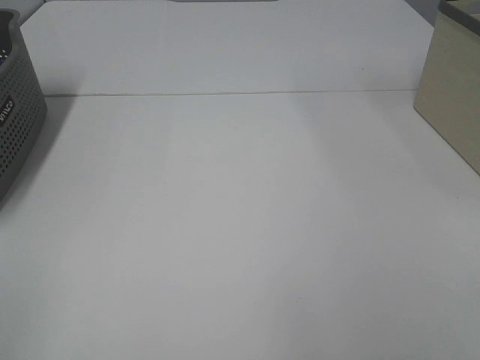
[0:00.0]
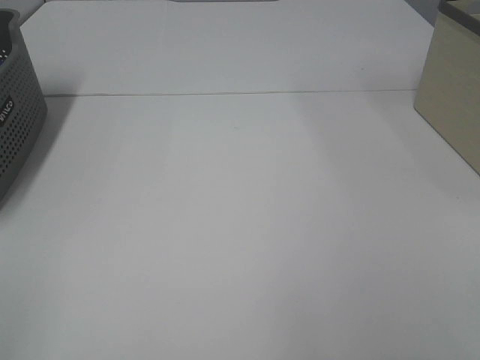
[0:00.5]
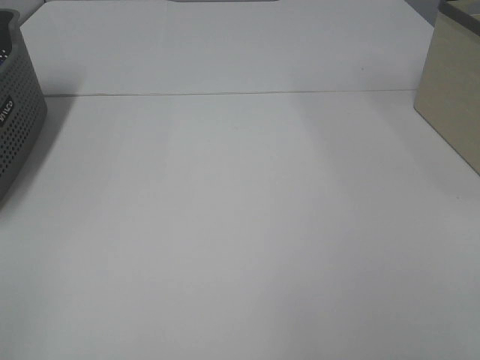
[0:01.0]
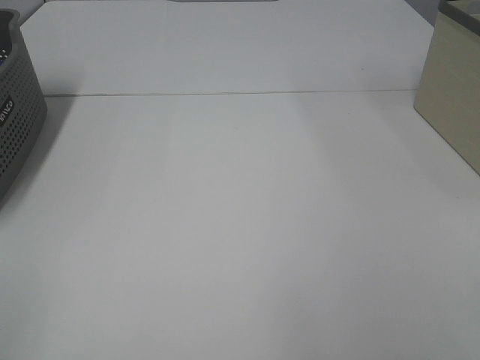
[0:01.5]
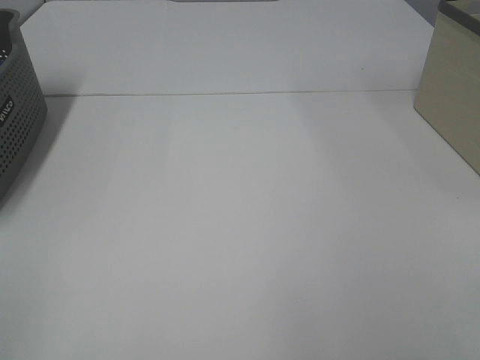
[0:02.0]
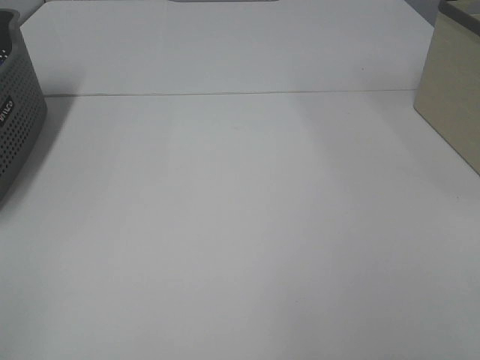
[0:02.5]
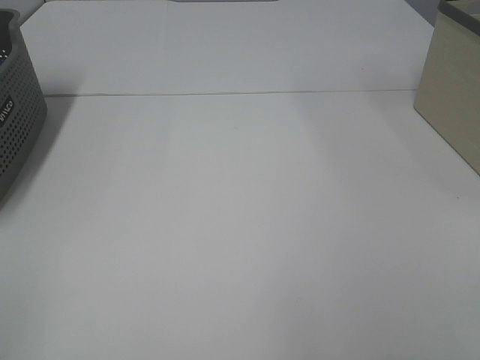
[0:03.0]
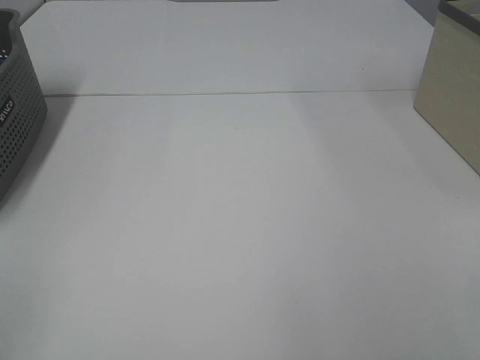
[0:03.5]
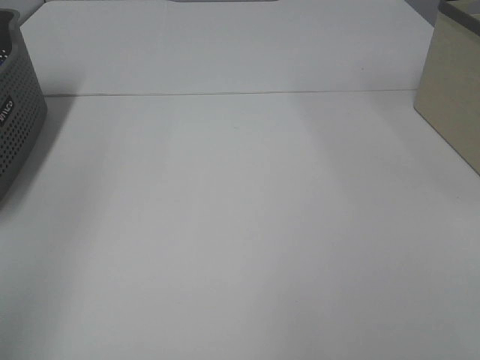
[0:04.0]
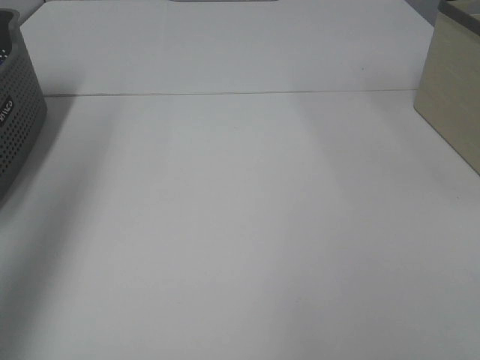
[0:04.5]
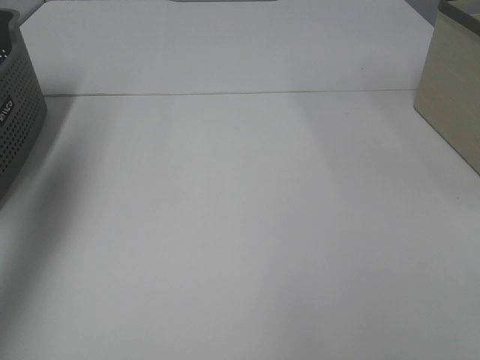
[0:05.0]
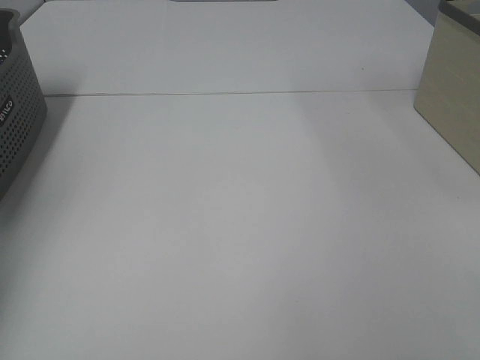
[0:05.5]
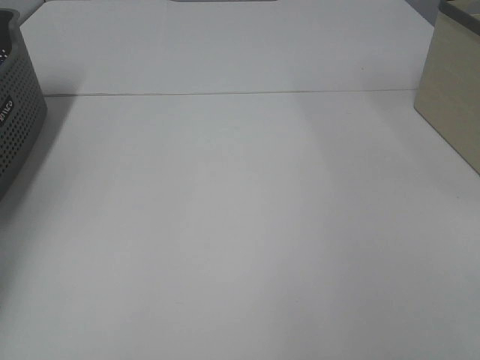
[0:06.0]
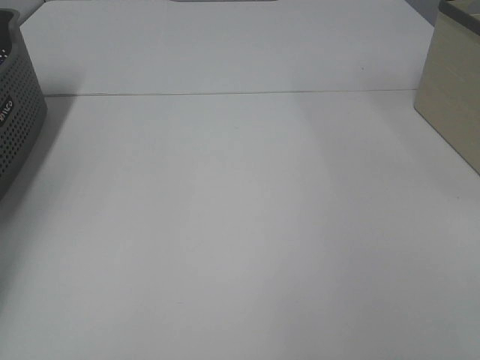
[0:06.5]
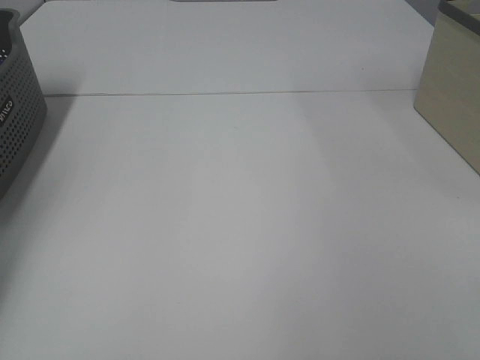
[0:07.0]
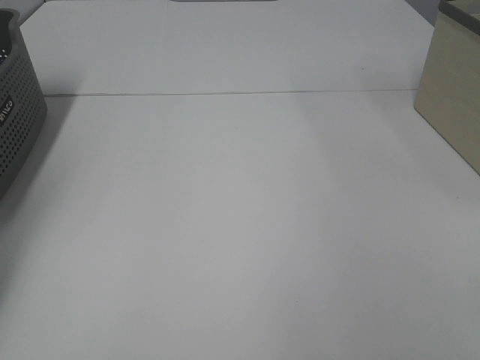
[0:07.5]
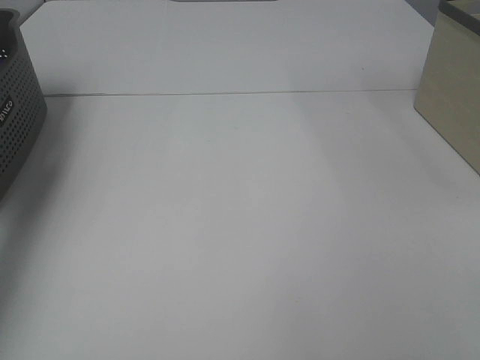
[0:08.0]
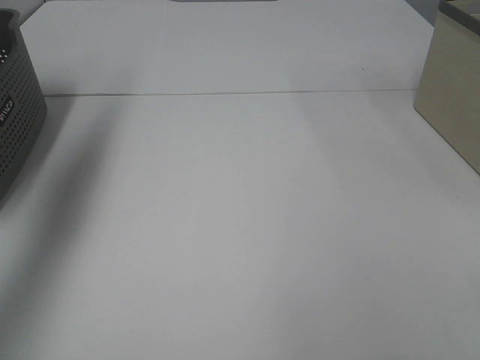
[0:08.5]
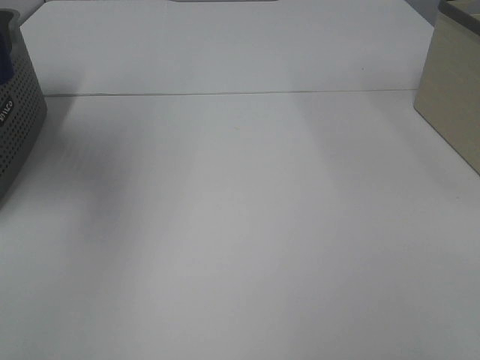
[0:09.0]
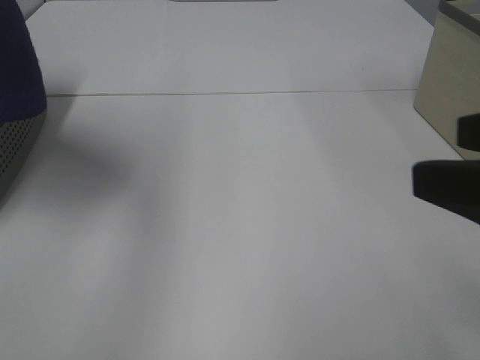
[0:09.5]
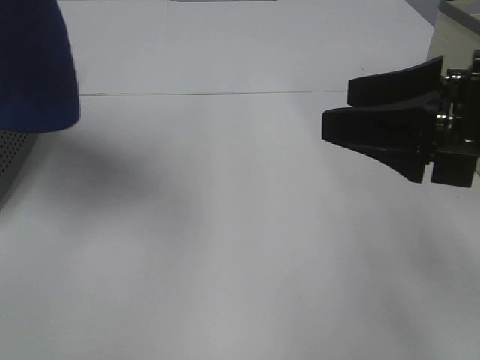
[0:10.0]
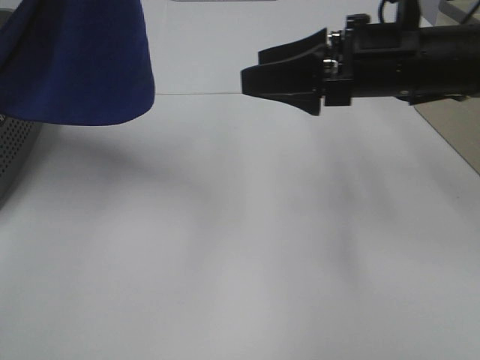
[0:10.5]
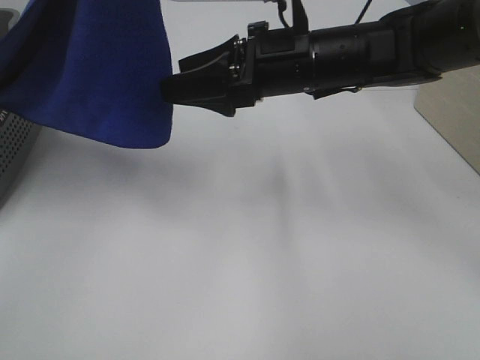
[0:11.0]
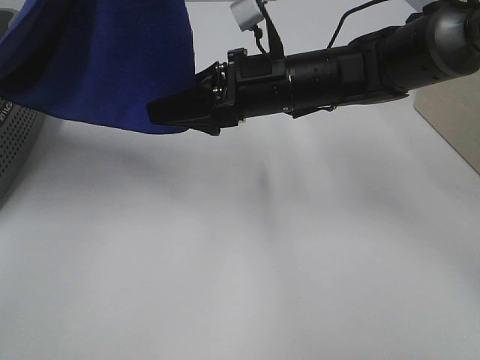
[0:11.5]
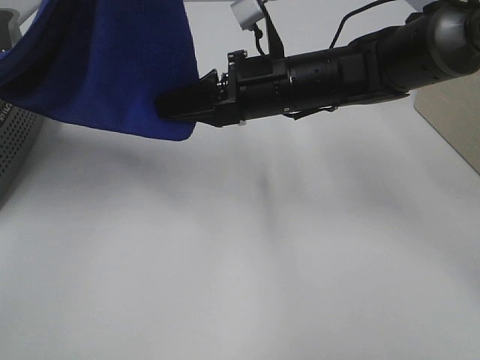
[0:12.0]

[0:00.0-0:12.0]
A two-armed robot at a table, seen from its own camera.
Task of the whole recording: Remove the towel and place it.
Step, 0:09.0 to 0:11.5: Right hand: grab a corner of the blue towel and straighten it.
0:00.0 to 0:02.0: Neither gripper changes place.
0:04.0 to 0:06.0: The left gripper moves forward and downward, about 40 cm.
0:06.0 to 0:08.0: The left gripper goes approximately 10 cm upward, and closes its fingers.
0:08.0 to 0:10.0: The left gripper travels to the right, backward and upward by some 40 cm; the right gripper travels forward by about 20 cm.
0:10.0 to 0:12.0: The right gripper moves to the left, forward and downward, roughly 20 cm, and closes up. Meanwhile the left gripper moves about 5 cm.

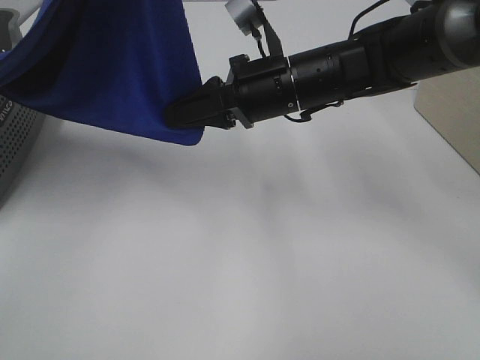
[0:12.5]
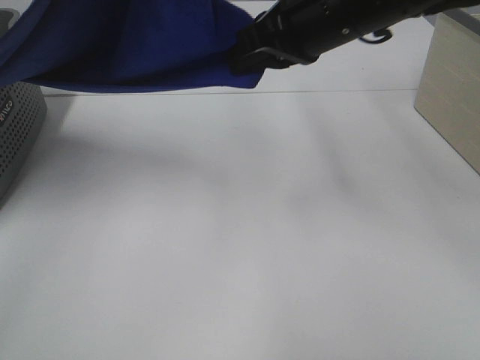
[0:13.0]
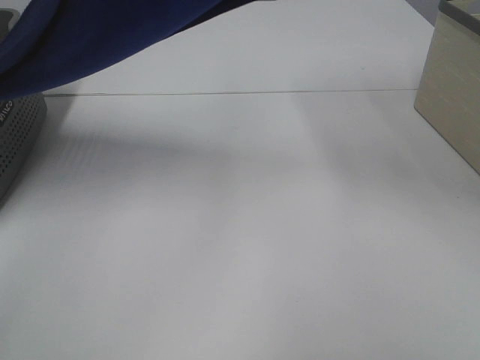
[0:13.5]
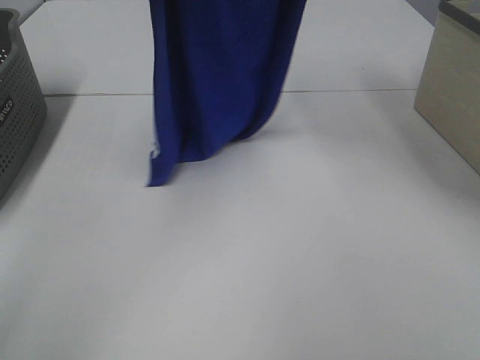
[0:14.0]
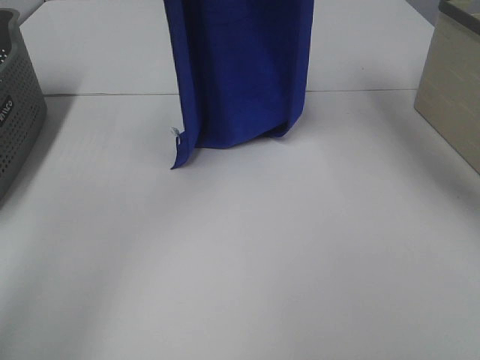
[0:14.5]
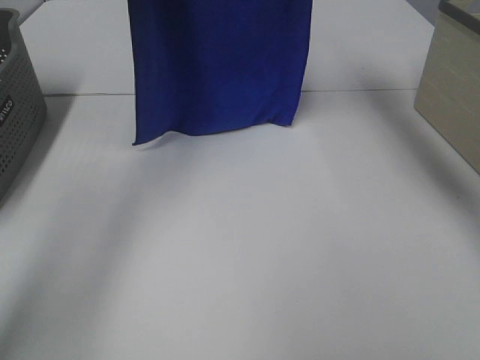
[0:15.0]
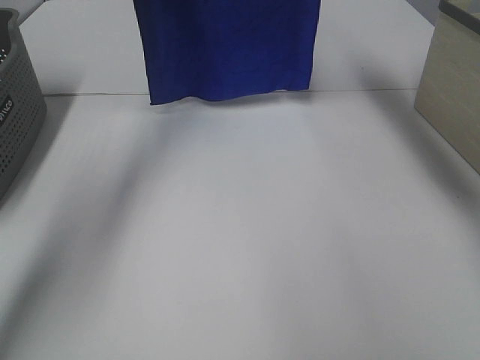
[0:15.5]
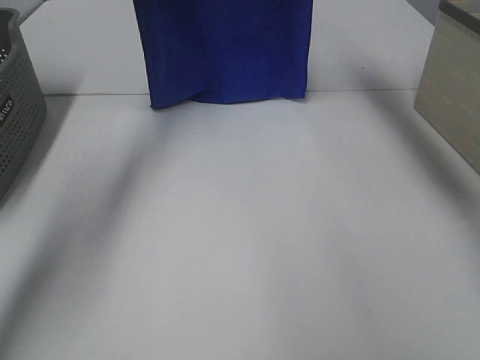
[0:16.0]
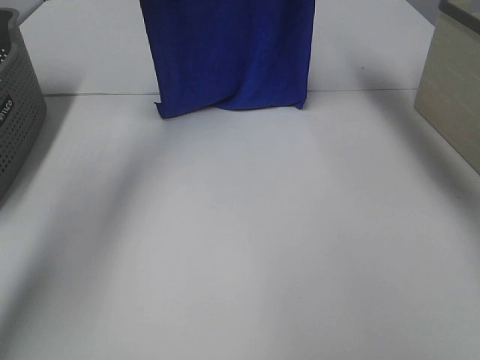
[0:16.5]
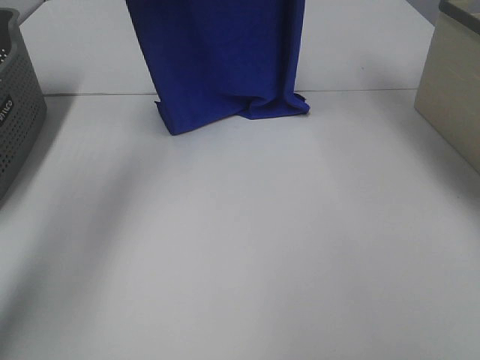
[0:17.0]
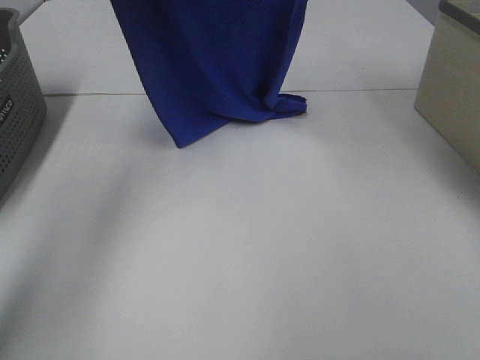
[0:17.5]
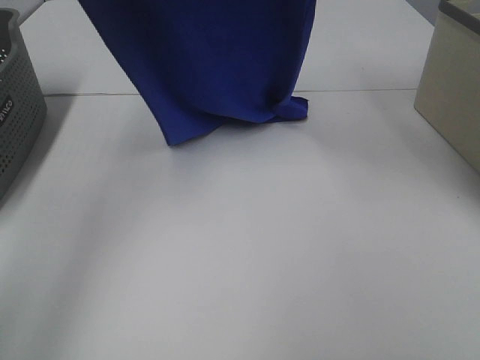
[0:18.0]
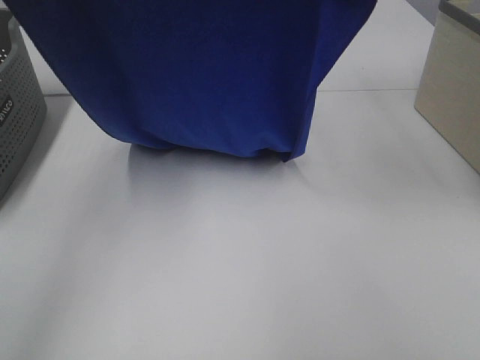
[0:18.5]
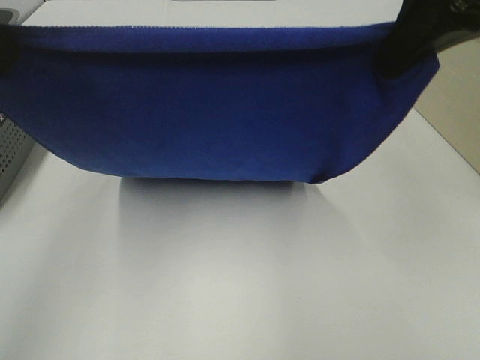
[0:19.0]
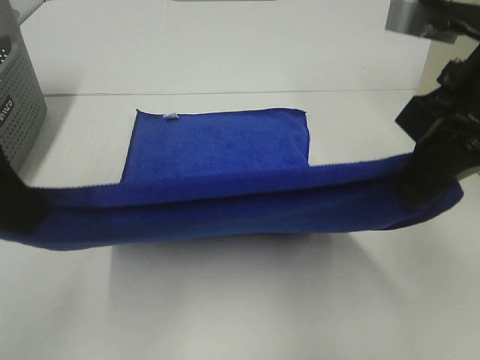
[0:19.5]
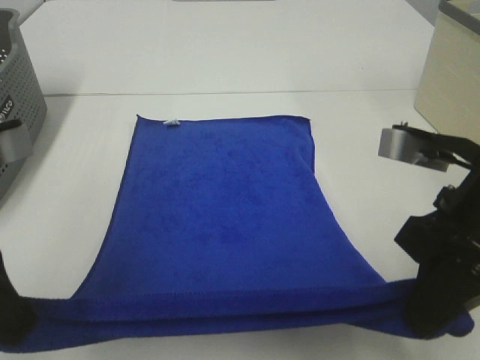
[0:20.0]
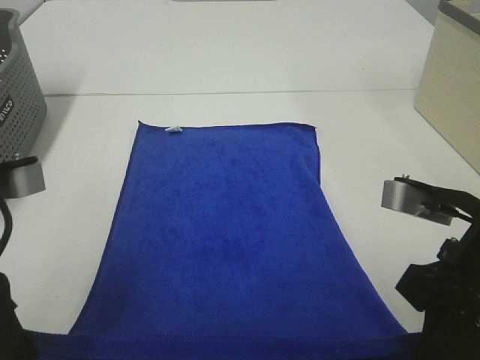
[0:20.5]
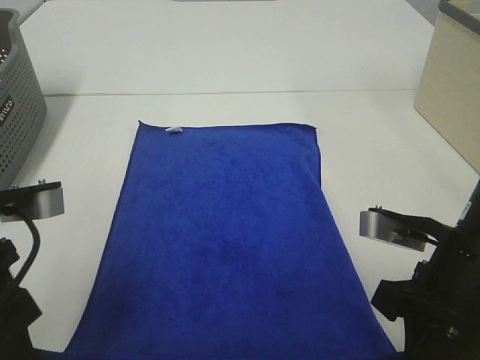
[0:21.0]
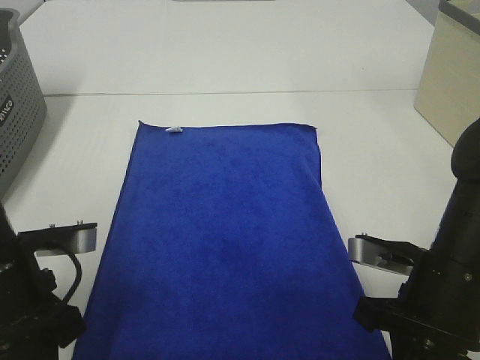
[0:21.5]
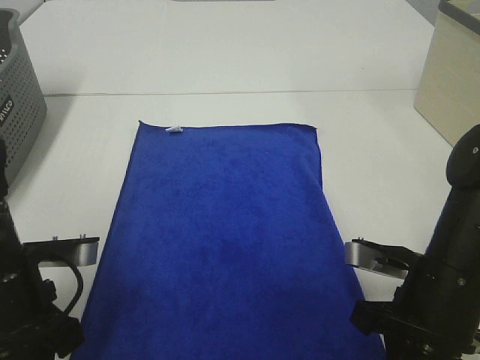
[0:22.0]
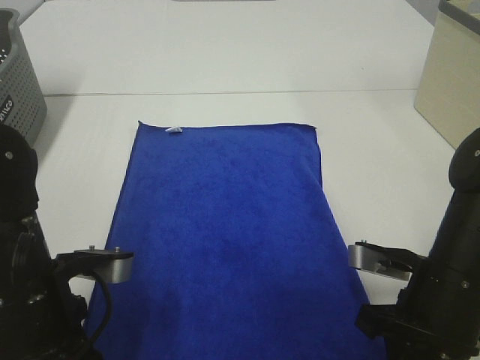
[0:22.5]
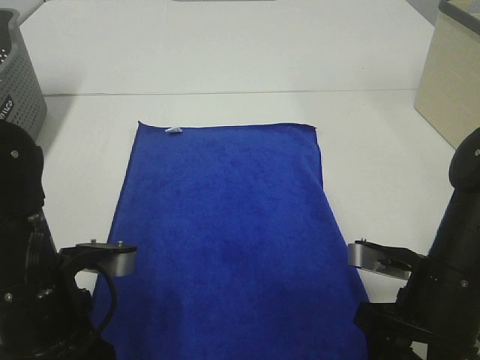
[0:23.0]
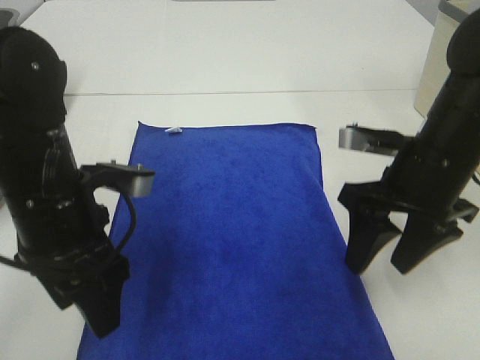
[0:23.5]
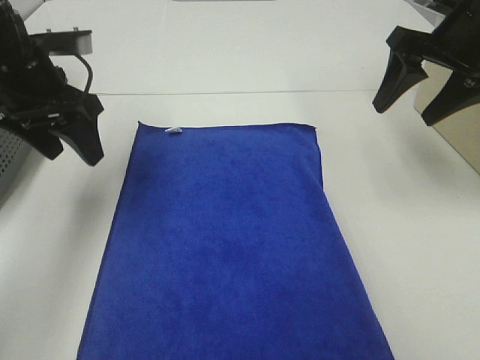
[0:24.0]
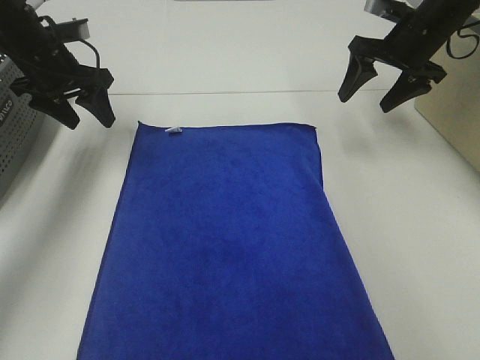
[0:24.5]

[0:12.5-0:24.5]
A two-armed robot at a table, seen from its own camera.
Task of the whole recording: Remove the towel and place it.
Step, 0:12.5 to 0:18.0: Left hand: spread the blue towel flat on the table.
Step, 0:12.5 to 0:18.0: Right hand: spread the blue towel flat on the table.
0:12.5 to 0:14.5: The left gripper moves forward, approximately 15 cm; the right gripper travels upward by about 25 cm.
0:14.5 to 0:16.5: Both grippers move forward, approximately 10 cm.
0:16.5 to 0:18.5: Both grippers move backward, approximately 20 cm.
0:18.5 to 0:20.5: Both grippers move downward and backward, approximately 25 cm.
0:20.5 to 0:22.5: Both grippers travel together downward, roughly 10 cm.
0:22.5 to 0:24.5: Both grippers travel together forward, some 30 cm. The right gripper opens its fingers; the left gripper opens.

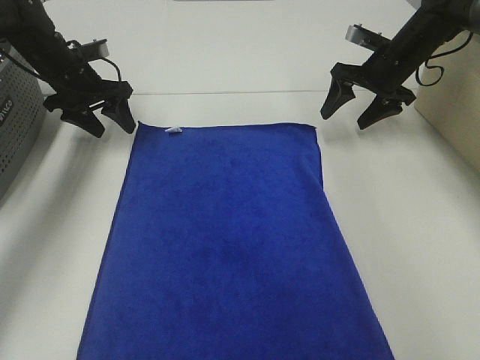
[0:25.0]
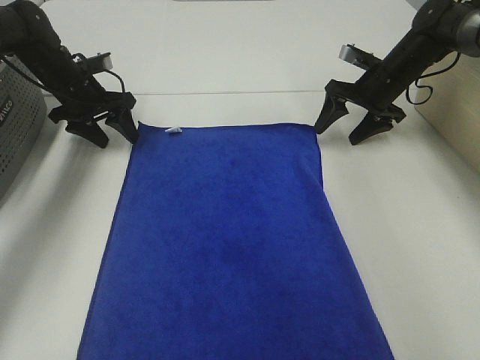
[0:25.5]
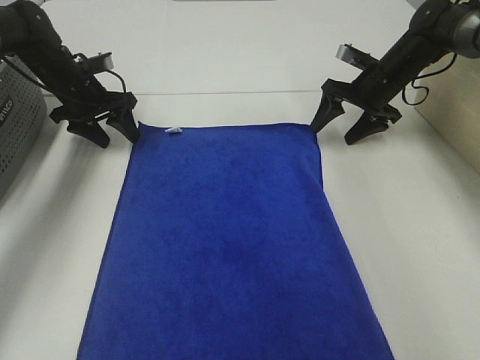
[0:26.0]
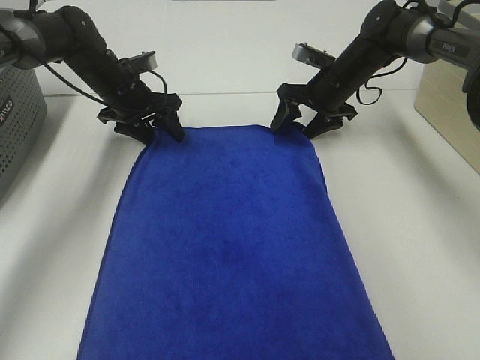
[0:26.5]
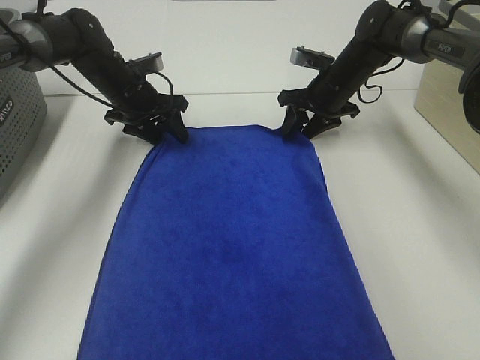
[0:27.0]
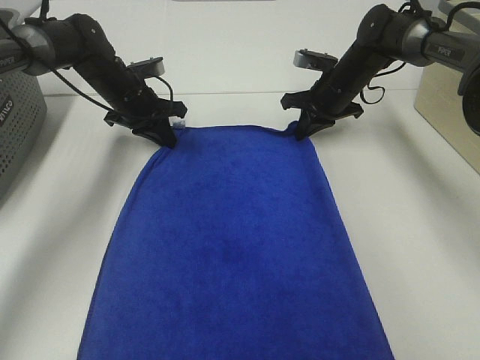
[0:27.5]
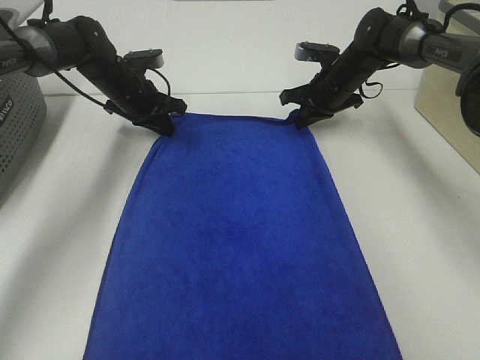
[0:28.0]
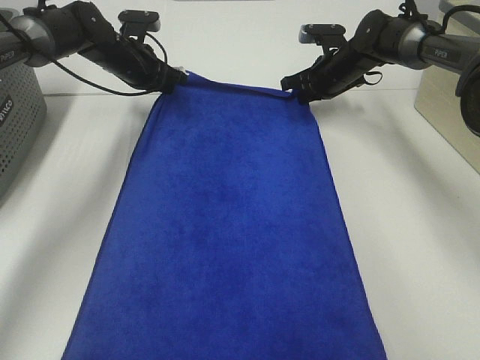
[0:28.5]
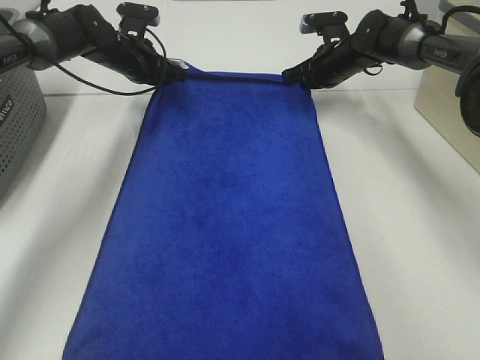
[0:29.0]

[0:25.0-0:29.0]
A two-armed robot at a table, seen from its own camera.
Task of the whole recording: Remove the towel and place it.
0:25.0 to 0:27.0: The right gripper heads to the left, covering about 10 cm; the left gripper heads to the right, covering approximately 10 cm.
0:27.0 to 0:29.0: The right gripper moves about 5 cm, and closes. Meanwhile the left gripper moves forward, roughly 5 cm, and closes.
